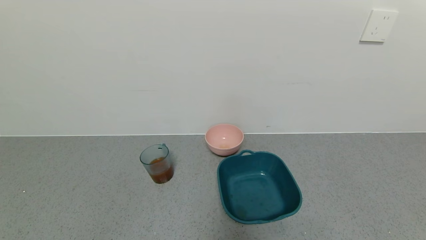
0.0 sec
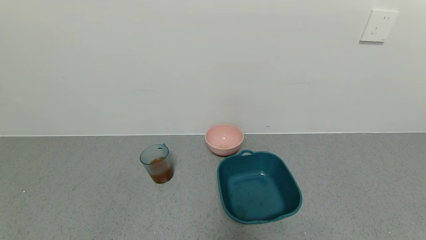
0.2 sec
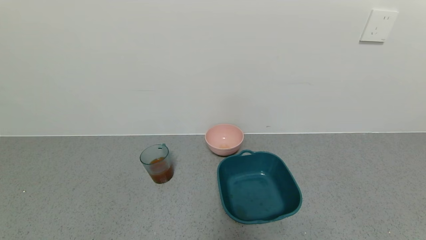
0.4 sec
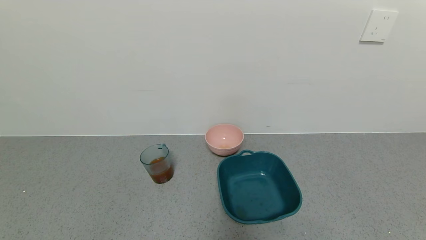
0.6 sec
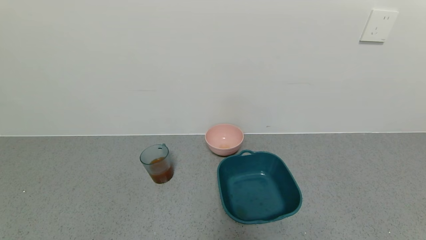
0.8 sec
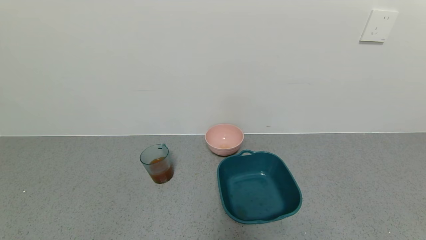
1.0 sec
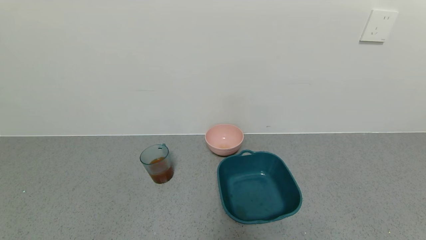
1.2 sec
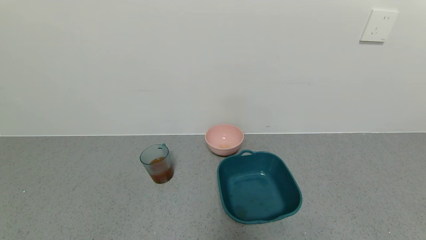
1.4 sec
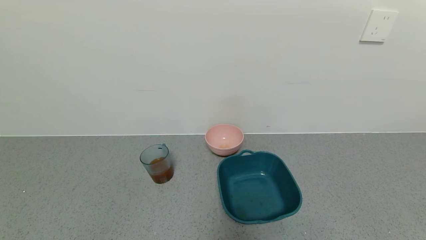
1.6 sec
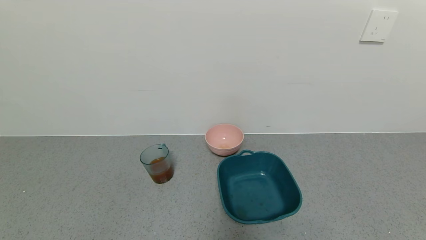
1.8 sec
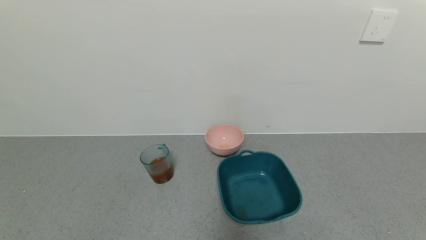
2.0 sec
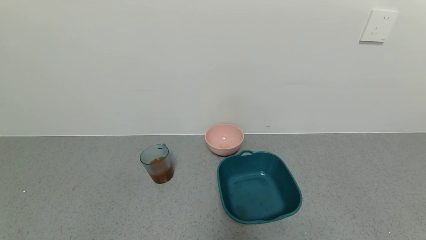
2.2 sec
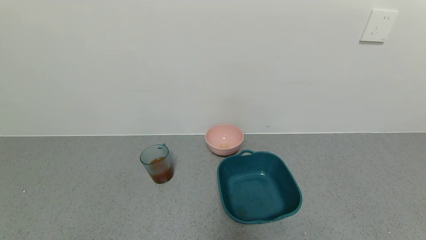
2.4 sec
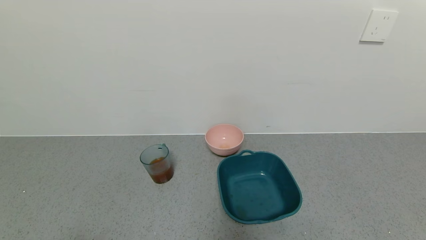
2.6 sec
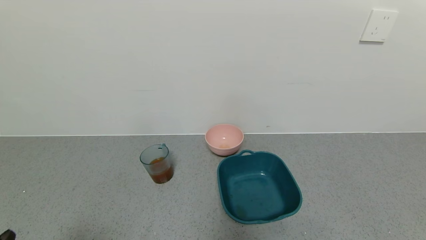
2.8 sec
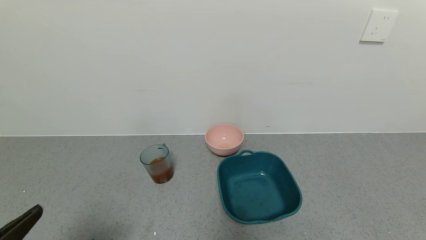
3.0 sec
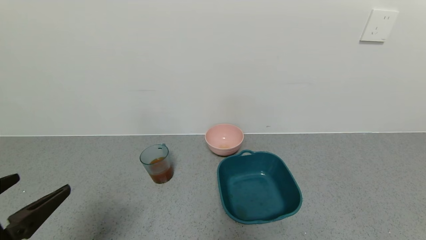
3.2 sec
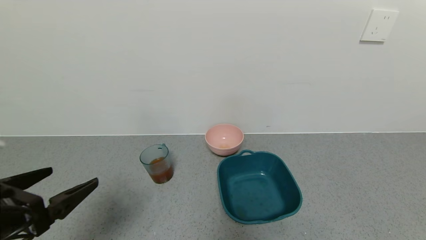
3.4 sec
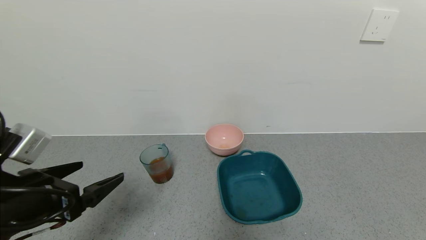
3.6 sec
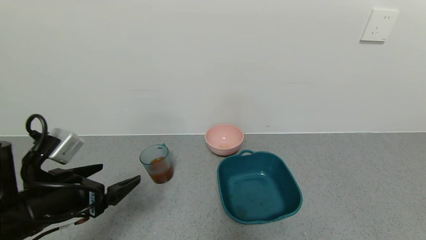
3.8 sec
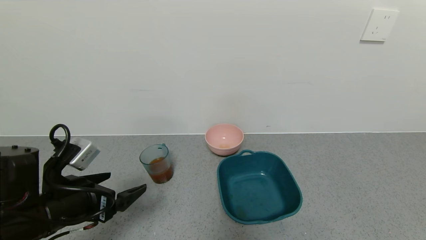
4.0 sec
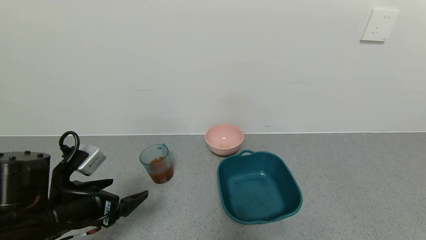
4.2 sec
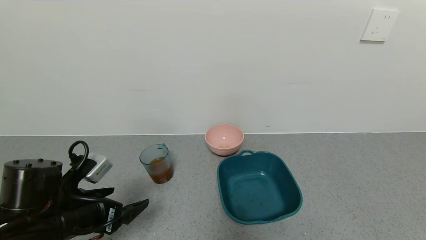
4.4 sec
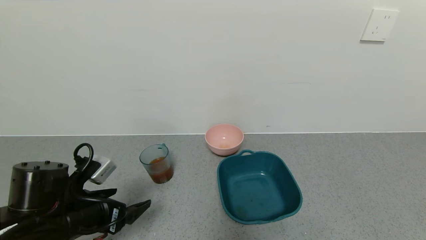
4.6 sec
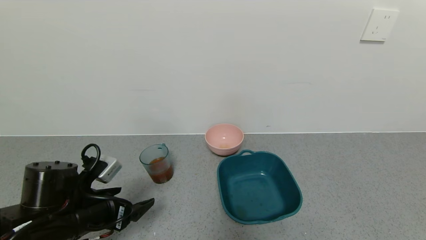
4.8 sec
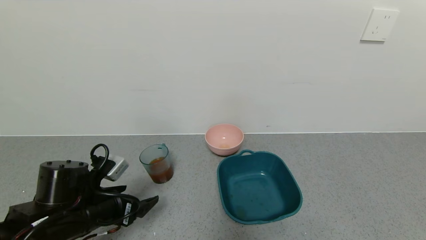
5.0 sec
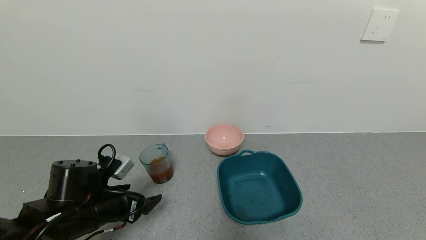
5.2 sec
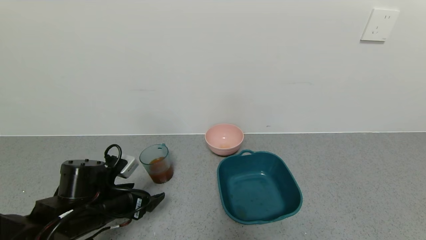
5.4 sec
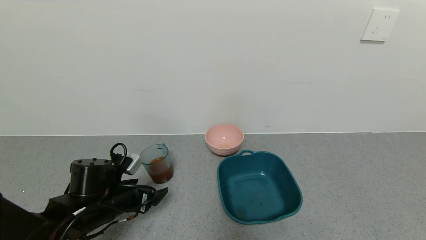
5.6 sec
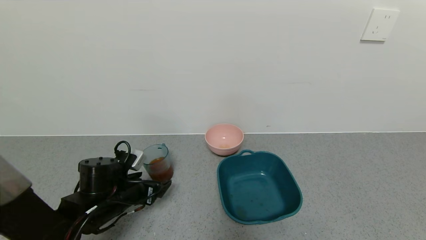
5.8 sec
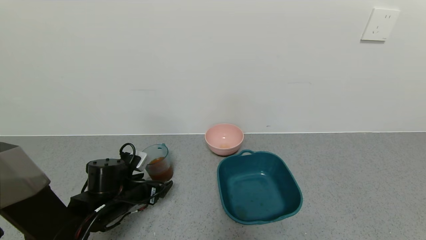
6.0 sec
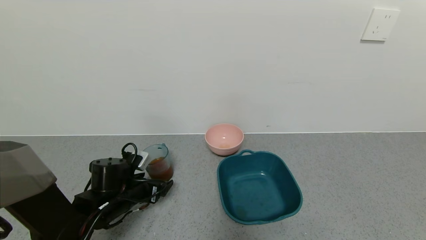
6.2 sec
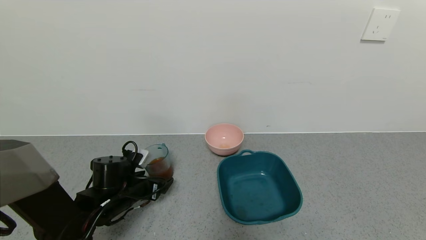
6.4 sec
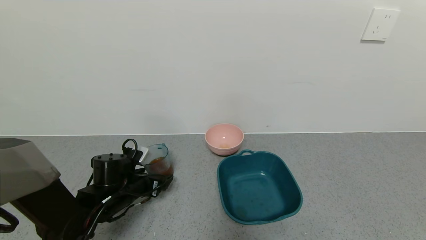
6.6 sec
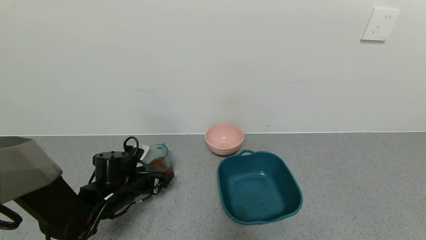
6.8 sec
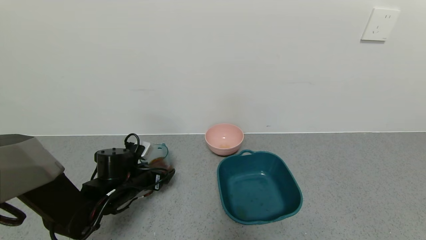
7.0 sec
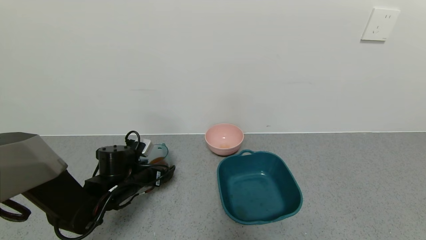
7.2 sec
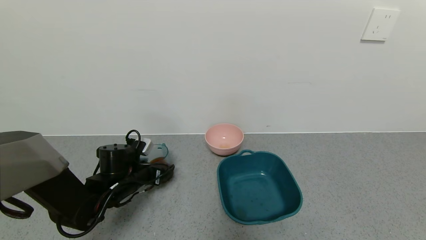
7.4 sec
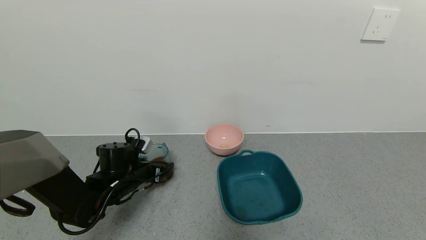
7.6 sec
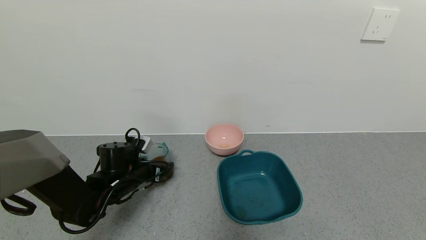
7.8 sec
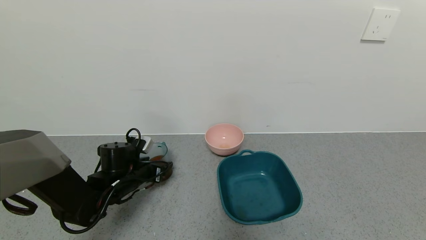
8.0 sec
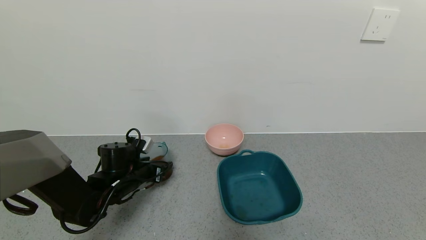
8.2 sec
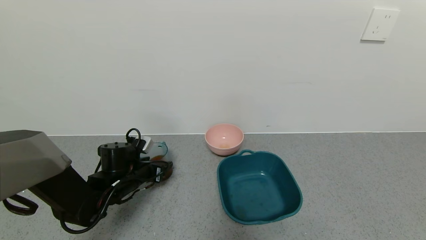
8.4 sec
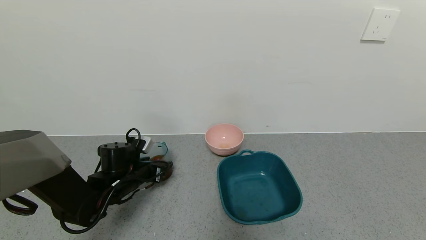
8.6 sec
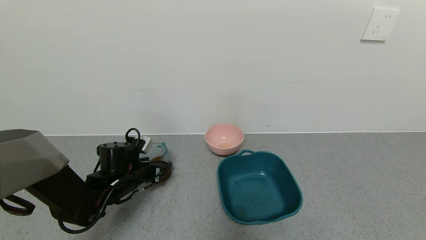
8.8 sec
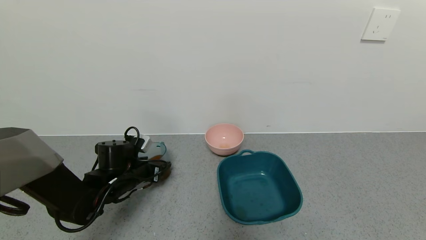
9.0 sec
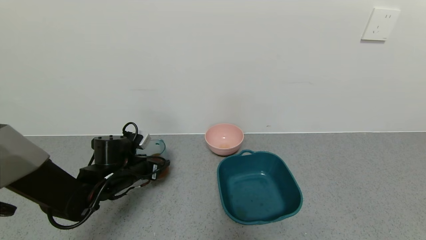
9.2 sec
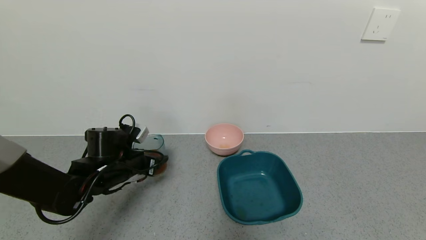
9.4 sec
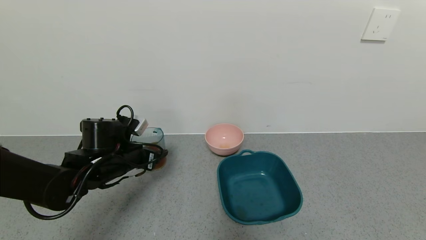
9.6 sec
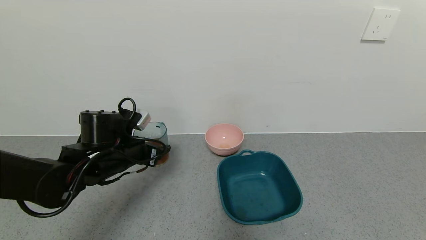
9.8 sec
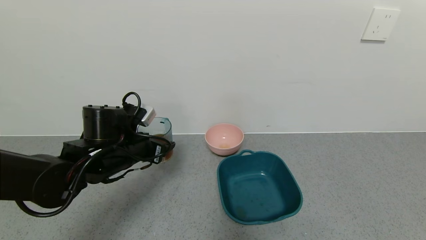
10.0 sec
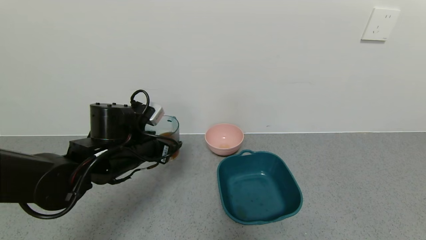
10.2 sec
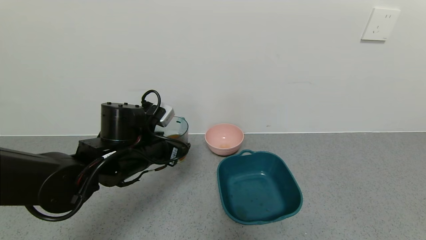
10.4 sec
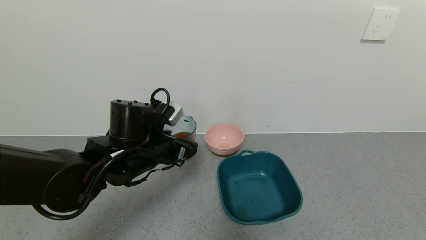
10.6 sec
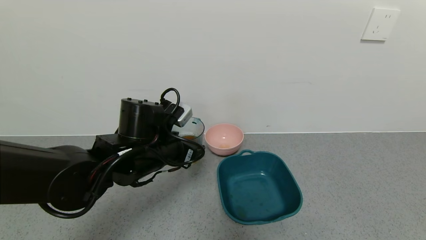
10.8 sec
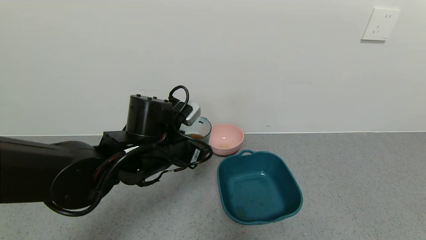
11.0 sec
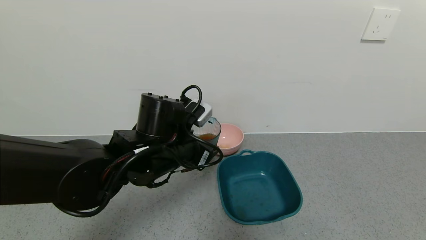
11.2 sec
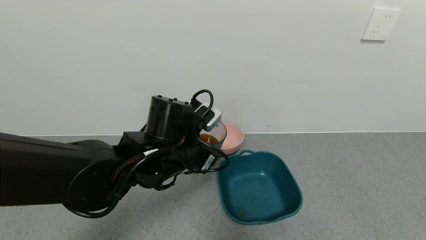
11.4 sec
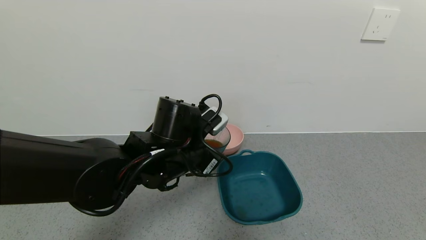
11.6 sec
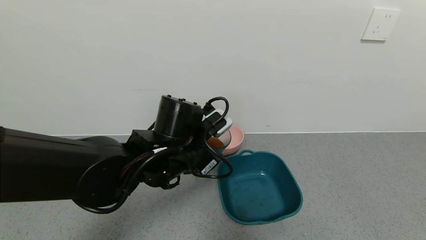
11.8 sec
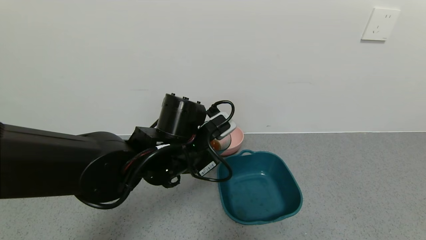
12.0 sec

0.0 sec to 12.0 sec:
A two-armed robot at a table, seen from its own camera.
Task of the whole recording: use a gripper to pick up the cup and pour the liquid into a bowl or tray.
Step, 0.0 sec to 10.0 sec: Pick up blue cup filled with tea with left gripper.
0.0 sec to 1.6 sec: Both grippers stay put.
1.6 sec to 3.0 sec: The left gripper goes some 15 cm upward and forward.
3.0 sec to 4.4 sec: The left gripper goes some 15 cm forward and downward.
4.4 sec to 6.0 sec: The left gripper travels forward and downward by some 10 cm.
6.0 sec to 7.6 sec: The left gripper travels forward by some 5 cm.
7.6 sec to 9.0 sec: The left gripper closes up.
9.0 sec to 10.4 sec: The left gripper is displaced upward and to the right by roughly 15 cm.
10.4 sec to 12.0 sec: The left gripper goes some 10 cm to the right.

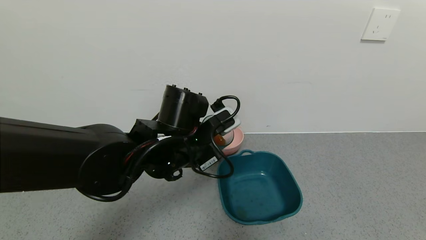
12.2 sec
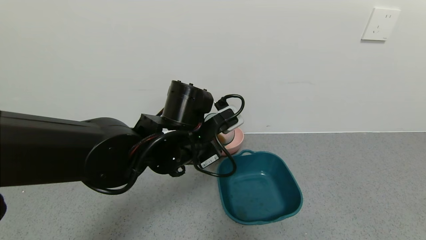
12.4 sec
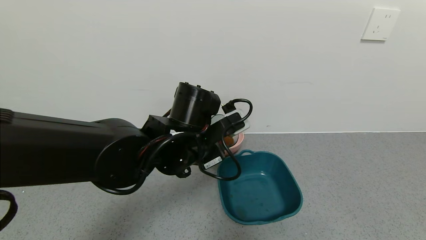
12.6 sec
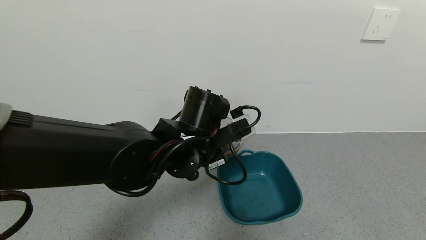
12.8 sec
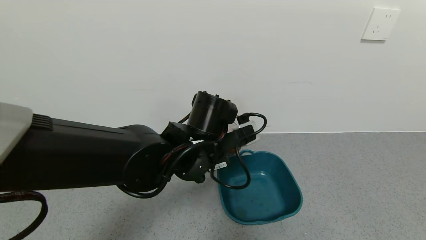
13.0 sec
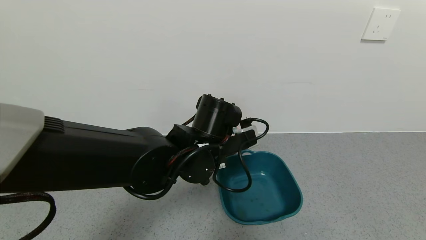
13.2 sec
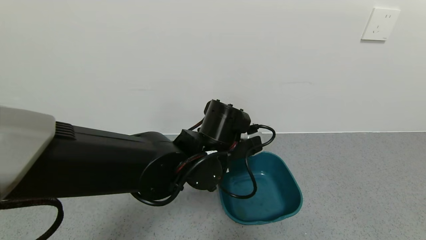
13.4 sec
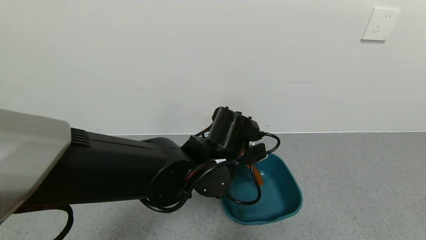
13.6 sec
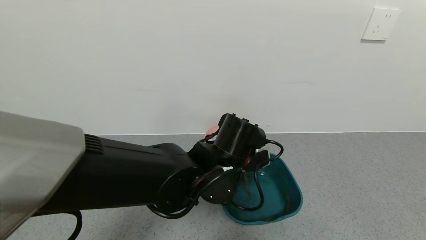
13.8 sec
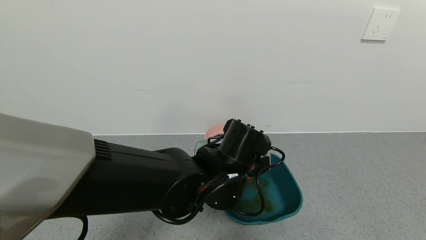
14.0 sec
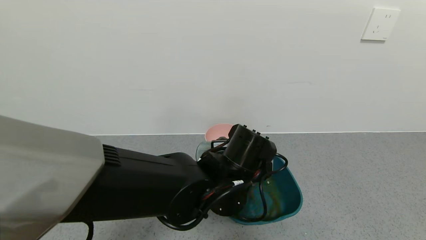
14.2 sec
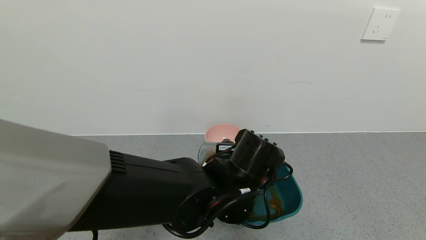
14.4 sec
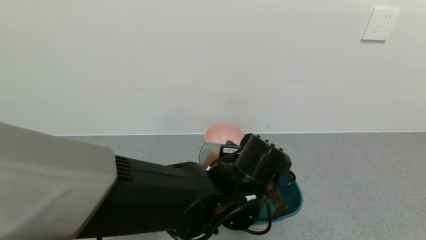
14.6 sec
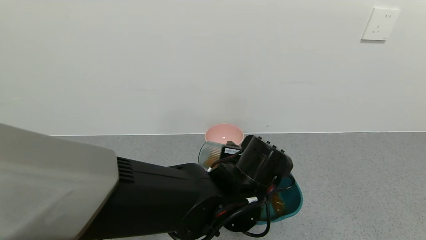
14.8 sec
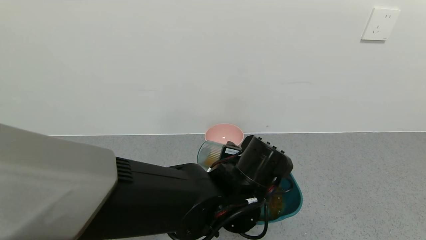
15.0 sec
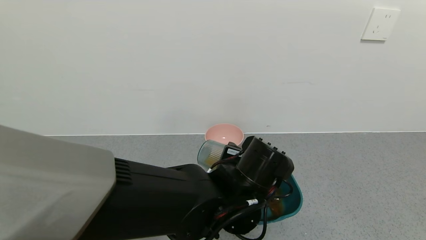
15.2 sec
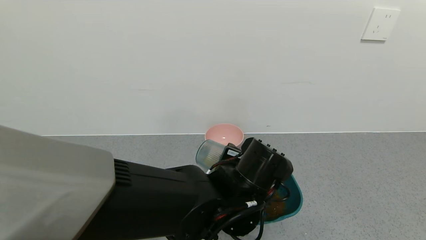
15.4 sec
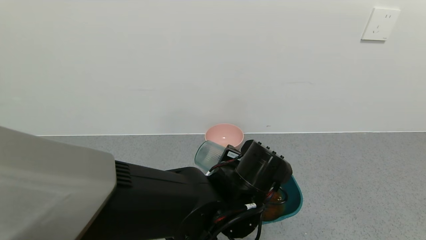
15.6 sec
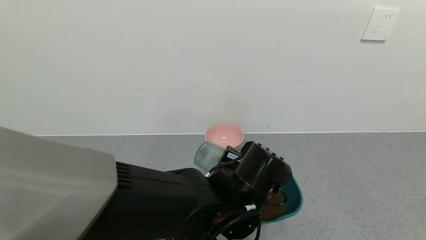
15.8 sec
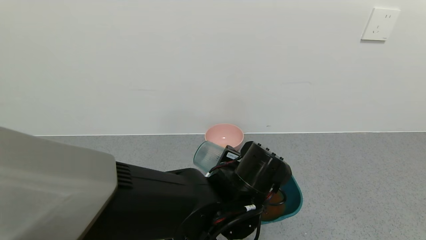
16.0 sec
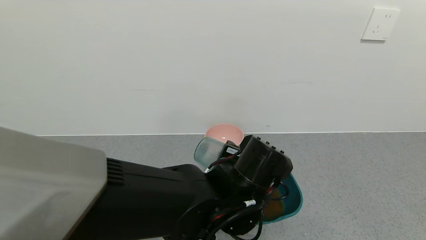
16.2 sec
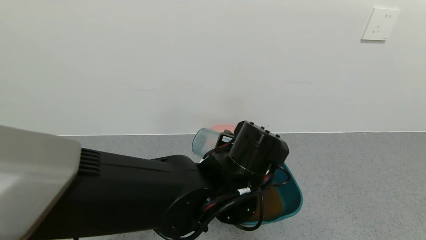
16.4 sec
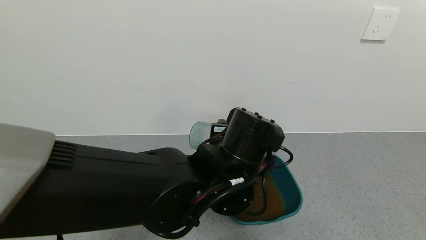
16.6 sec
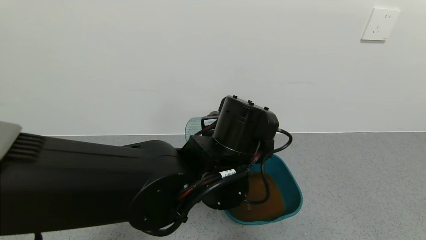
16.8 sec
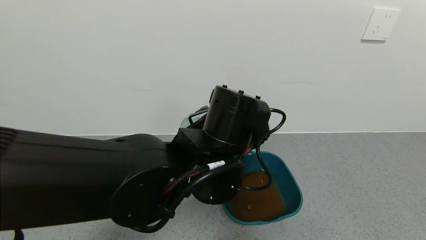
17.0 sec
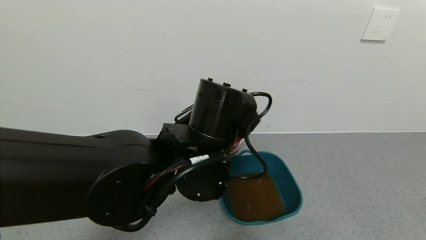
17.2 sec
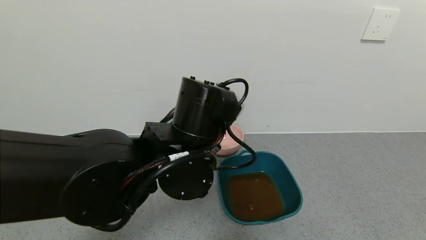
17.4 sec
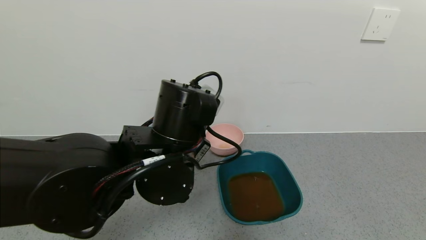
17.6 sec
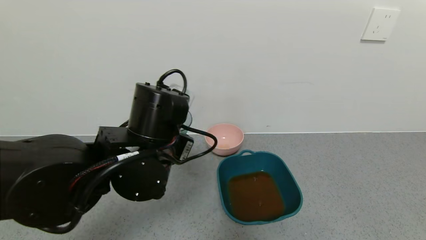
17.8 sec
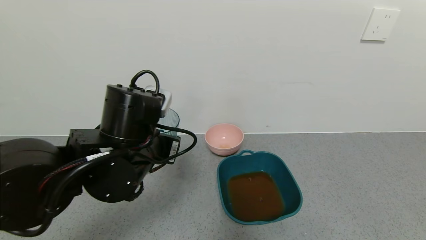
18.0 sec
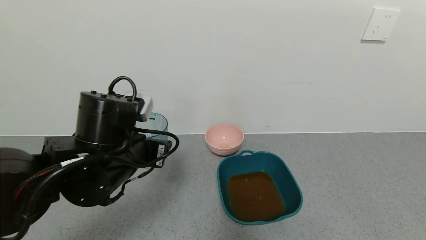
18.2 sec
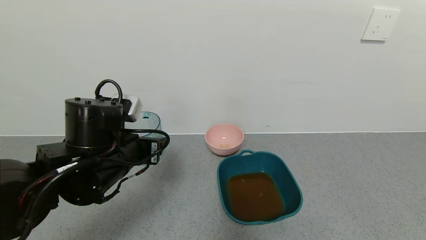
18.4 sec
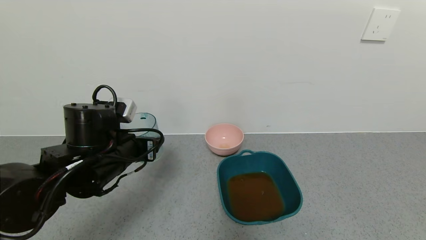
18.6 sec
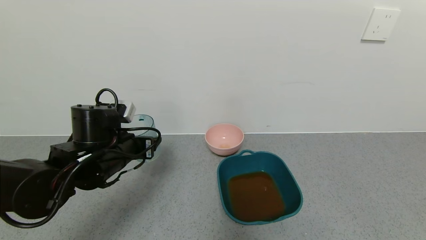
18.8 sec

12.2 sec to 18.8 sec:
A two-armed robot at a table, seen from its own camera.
Task of the whole recording: use a gripper to pick up the cup and pour the liquid into a bowl or tray.
Step, 12.2 sec to 17.0 sec: Pour the tea into the blue basin with left gripper.
12.2 sec to 13.8 sec: The left gripper travels to the right by about 5 cm.
15.4 sec to 17.2 sec: The left gripper heads upward, covering about 10 cm.
17.2 sec to 18.8 sec: The left gripper moves to the left, some 20 cm.
